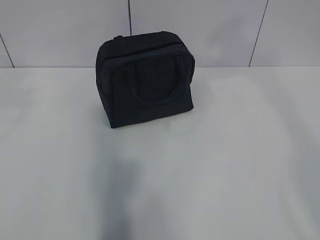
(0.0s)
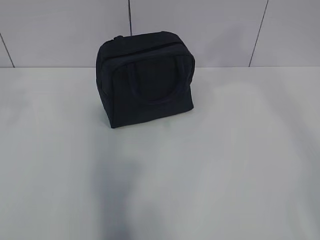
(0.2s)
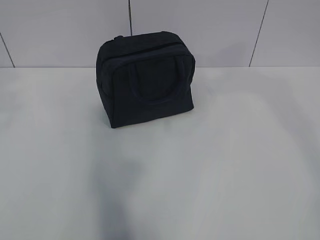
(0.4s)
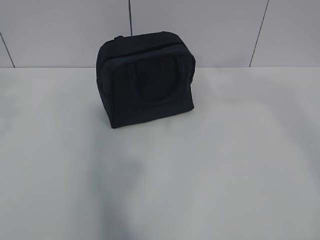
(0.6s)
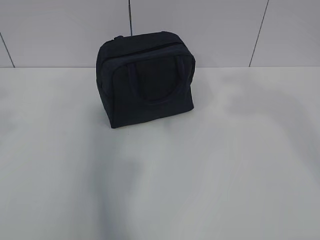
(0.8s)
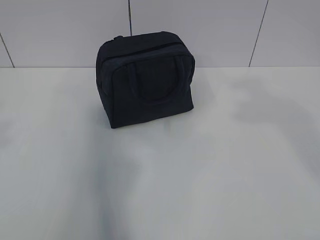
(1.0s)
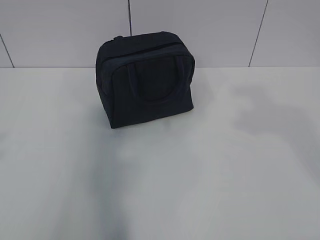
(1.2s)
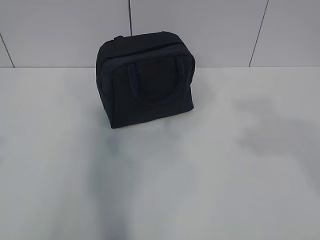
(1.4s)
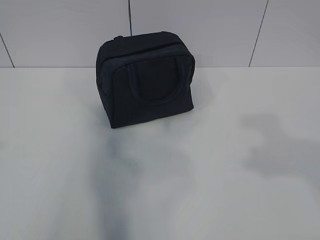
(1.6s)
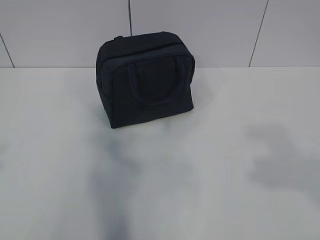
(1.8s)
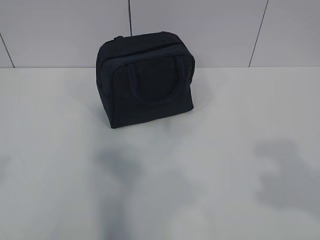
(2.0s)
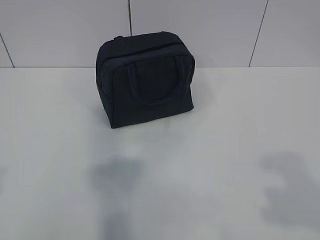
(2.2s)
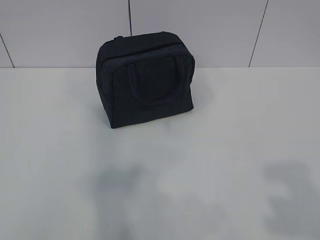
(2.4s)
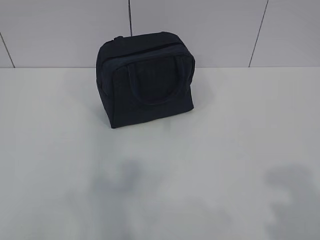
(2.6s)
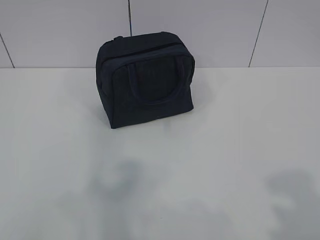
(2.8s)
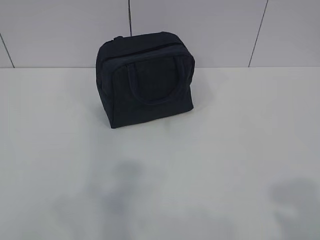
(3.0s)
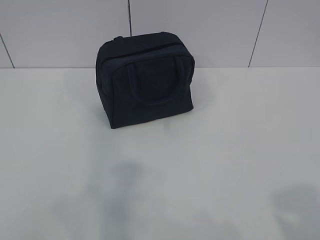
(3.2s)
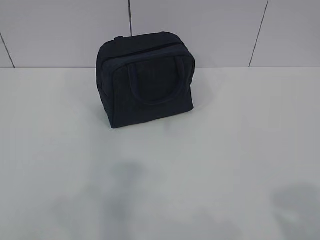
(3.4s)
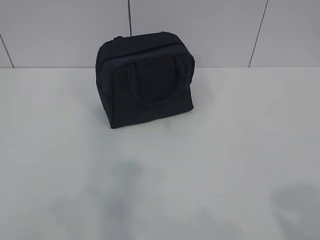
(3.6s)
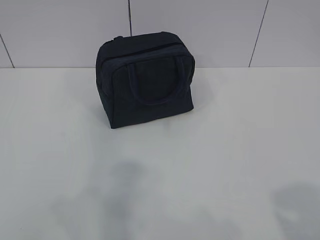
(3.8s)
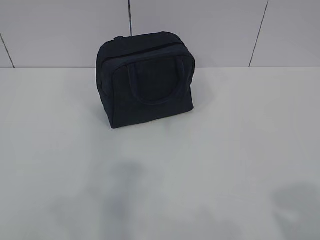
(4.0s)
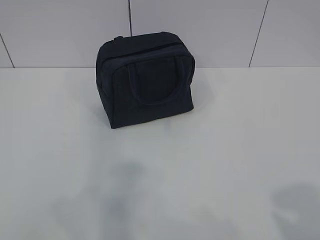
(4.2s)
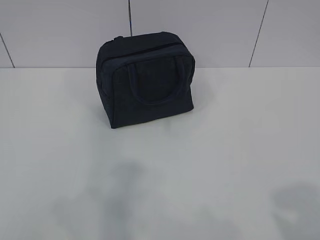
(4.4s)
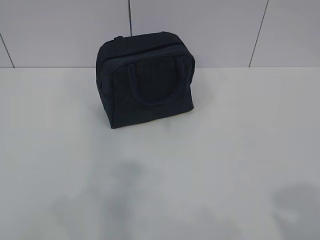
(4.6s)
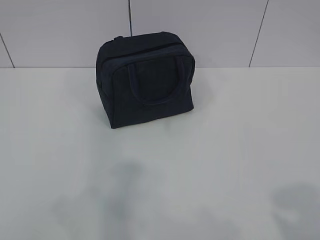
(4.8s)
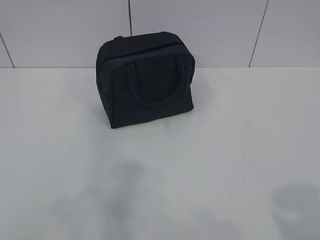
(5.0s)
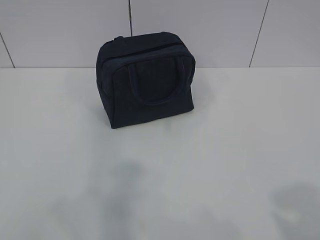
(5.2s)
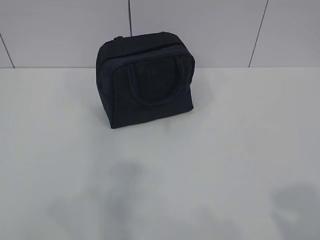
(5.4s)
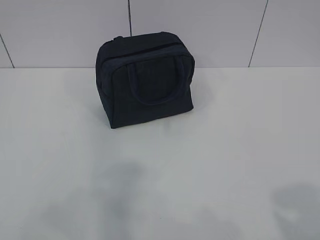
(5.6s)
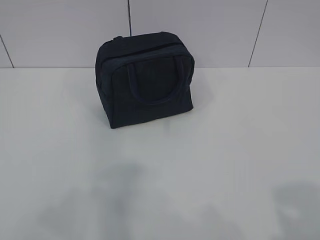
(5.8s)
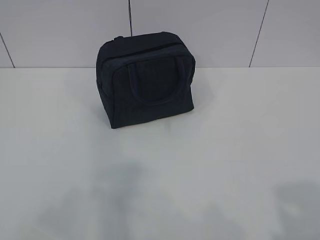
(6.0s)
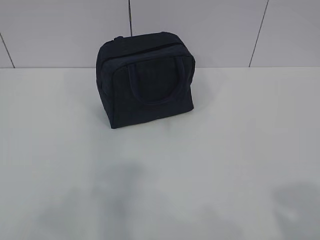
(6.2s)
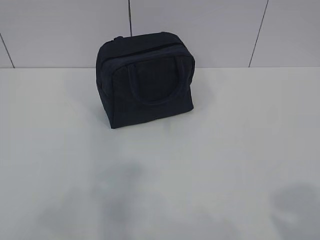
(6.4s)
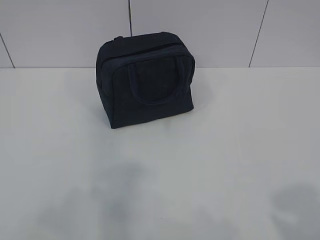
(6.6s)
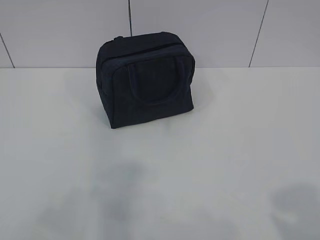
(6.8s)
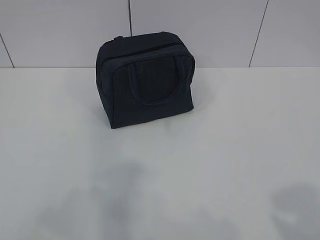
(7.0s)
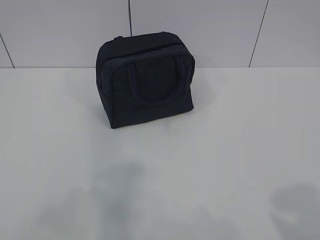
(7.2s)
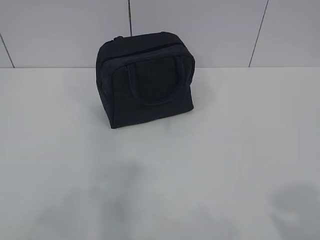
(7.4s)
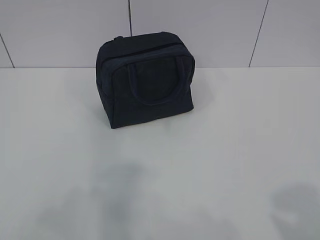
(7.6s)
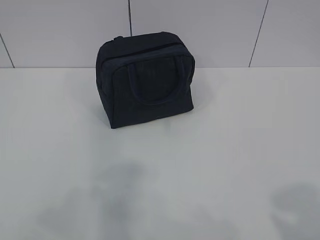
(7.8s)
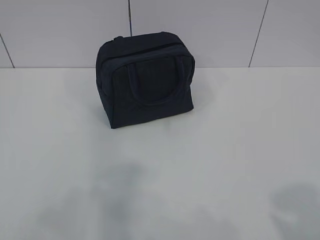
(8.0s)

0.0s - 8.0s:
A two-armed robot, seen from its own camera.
1.6s - 3.2s: The left gripper is displaced downward and backward by some 10 cm, while the right gripper is displaced backward and downward by some 15 cm.
3.2s - 4.8s: The two grippers keep their place.
6.4s - 8.0s: The two grippers keep their place.
